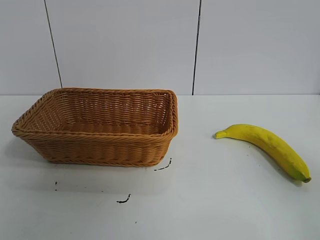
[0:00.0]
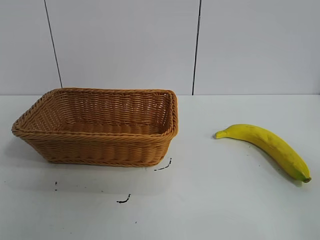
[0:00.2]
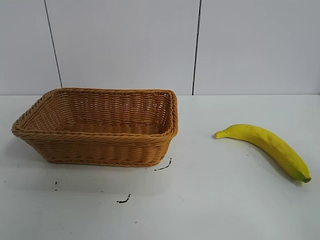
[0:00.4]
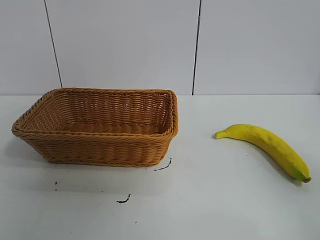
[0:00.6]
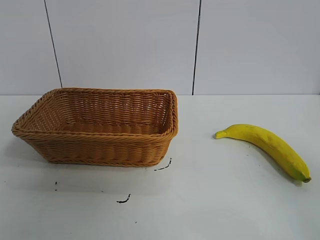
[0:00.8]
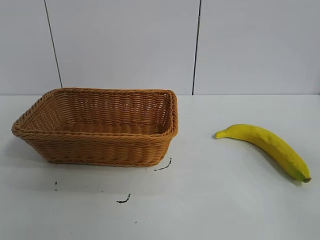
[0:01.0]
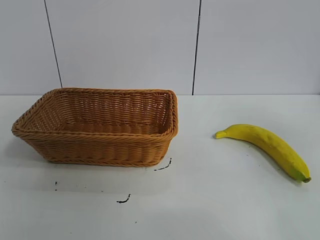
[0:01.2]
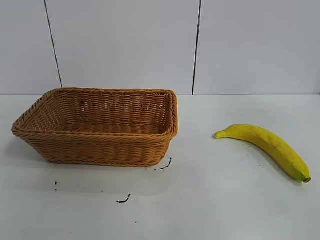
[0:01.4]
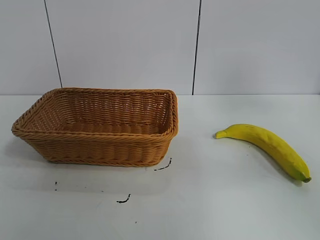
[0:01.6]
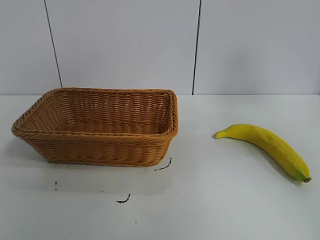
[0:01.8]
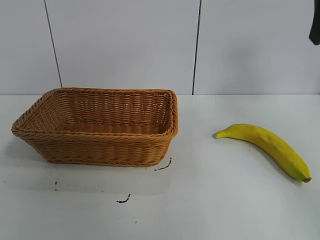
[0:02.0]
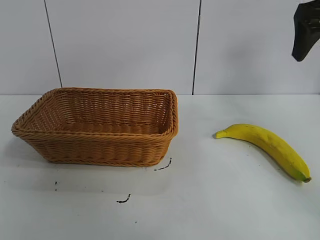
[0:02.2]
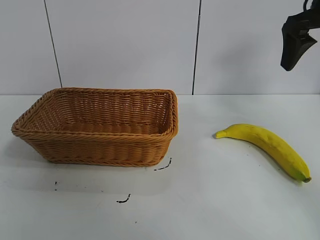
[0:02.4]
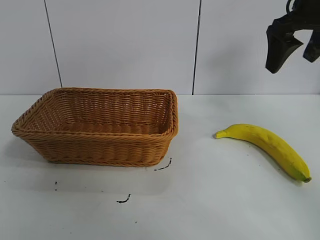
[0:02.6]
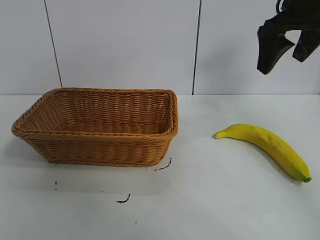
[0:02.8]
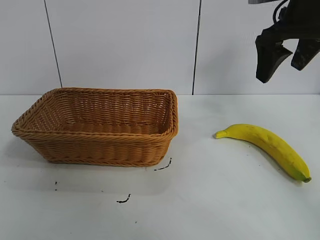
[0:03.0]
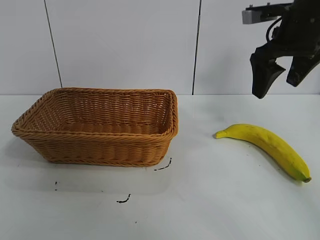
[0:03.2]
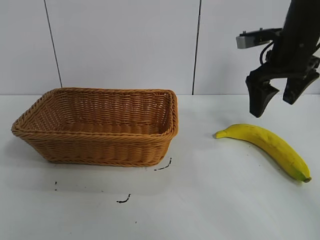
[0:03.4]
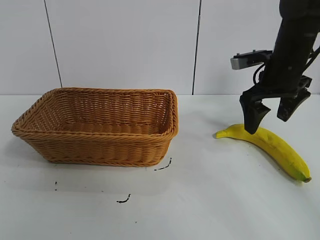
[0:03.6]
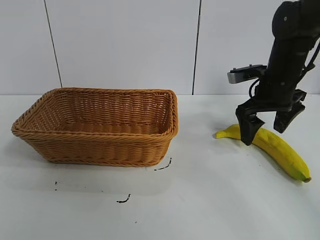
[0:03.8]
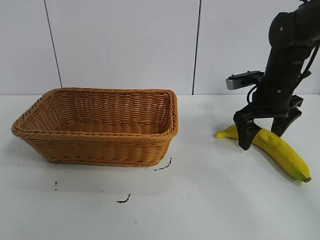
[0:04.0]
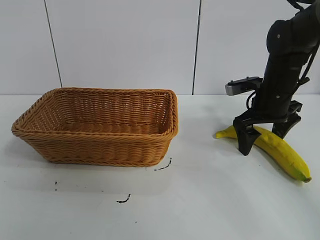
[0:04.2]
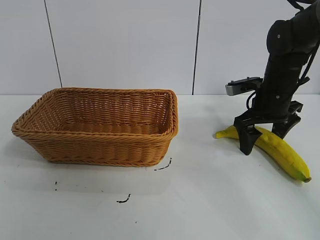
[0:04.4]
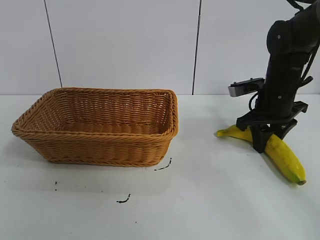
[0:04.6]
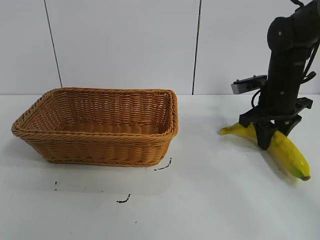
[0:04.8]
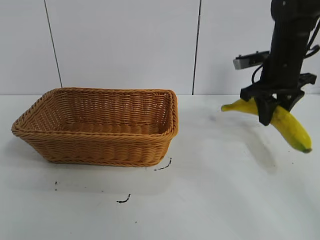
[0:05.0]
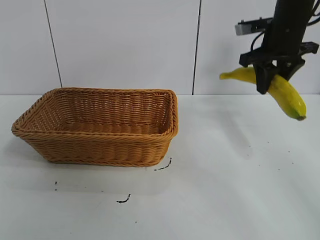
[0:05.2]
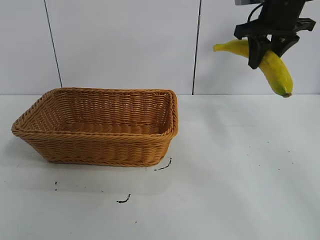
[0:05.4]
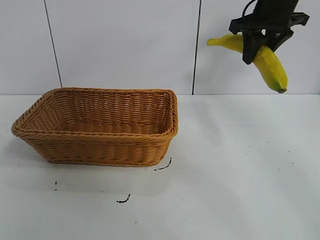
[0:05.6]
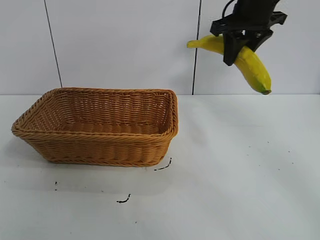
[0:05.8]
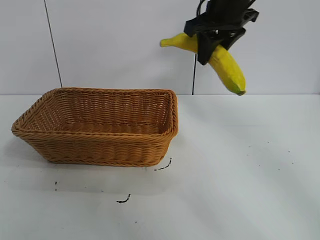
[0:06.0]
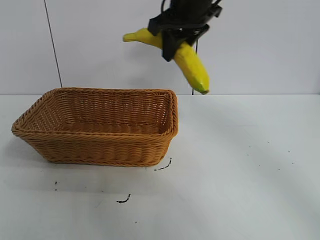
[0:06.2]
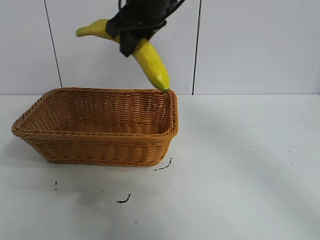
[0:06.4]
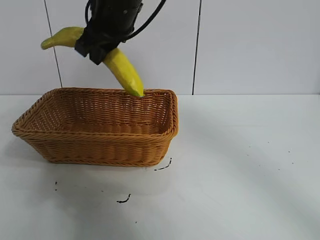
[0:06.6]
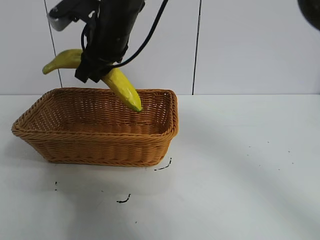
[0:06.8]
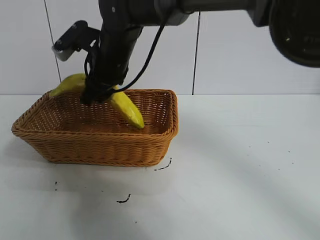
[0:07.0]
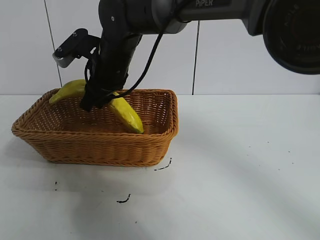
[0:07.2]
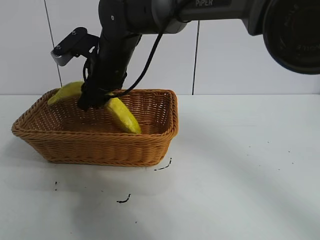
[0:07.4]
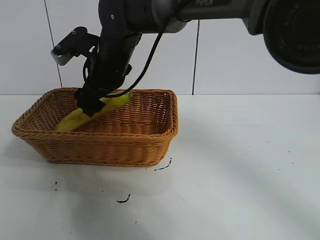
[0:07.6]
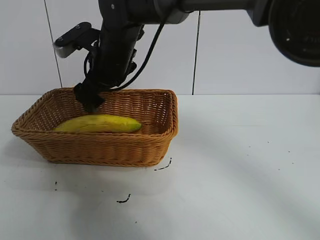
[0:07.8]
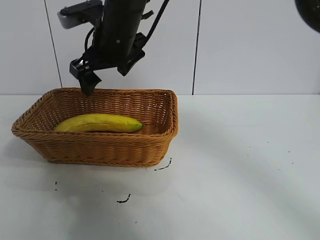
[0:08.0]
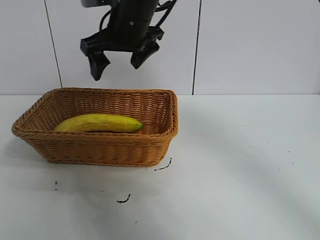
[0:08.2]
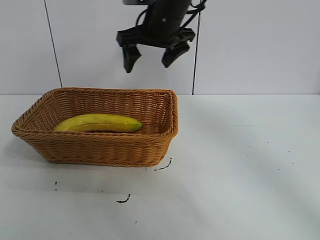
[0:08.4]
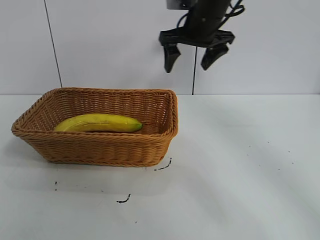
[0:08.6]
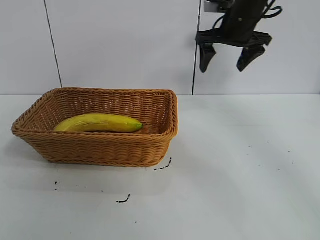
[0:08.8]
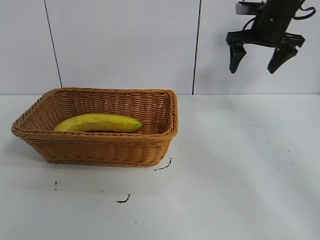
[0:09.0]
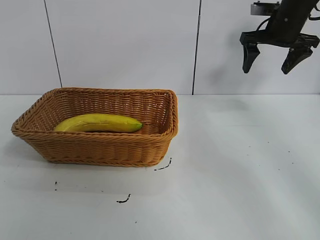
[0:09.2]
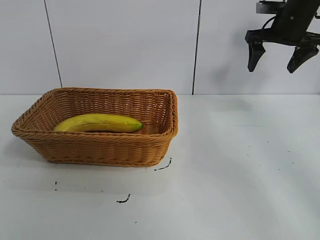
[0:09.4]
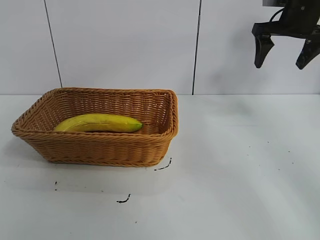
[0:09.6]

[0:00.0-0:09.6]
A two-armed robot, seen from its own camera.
Task of the whole recording: pick up the banana and put it into the basket.
Step, 0:00.8 to 0:04.4: Grasp the banana with right gripper.
Step, 0:04.8 to 0:08.0: Place the banana in the basket with right gripper.

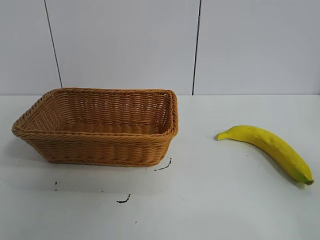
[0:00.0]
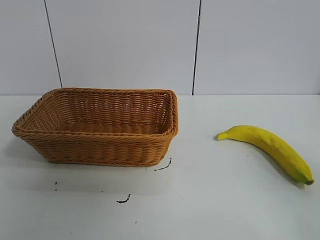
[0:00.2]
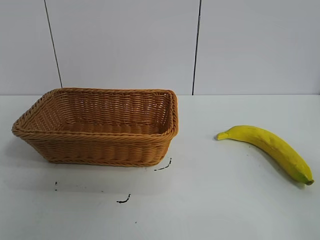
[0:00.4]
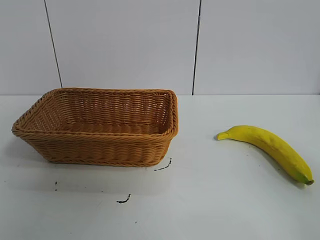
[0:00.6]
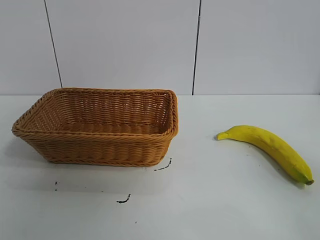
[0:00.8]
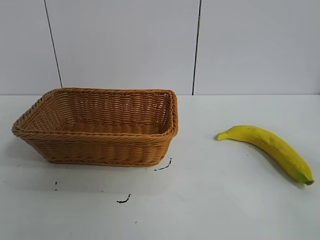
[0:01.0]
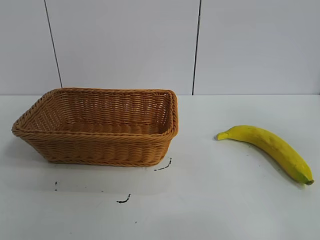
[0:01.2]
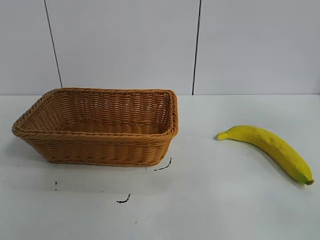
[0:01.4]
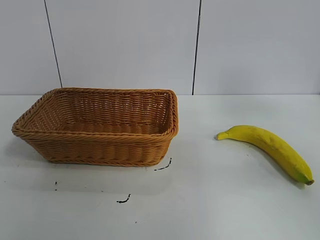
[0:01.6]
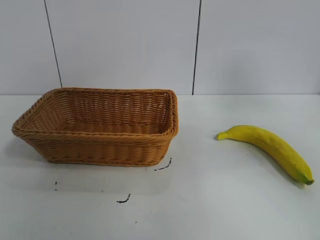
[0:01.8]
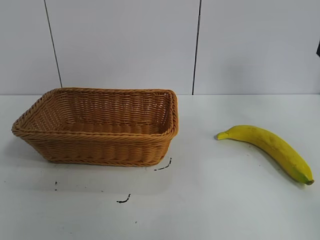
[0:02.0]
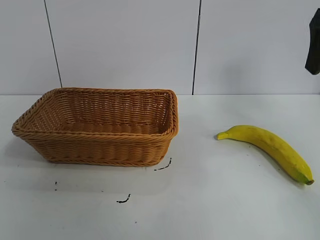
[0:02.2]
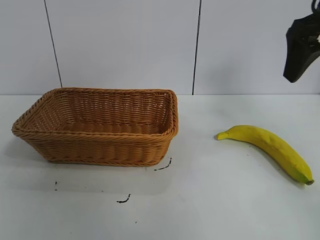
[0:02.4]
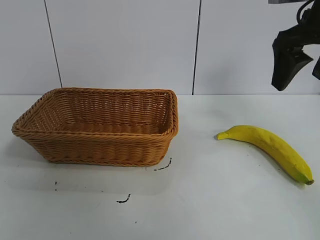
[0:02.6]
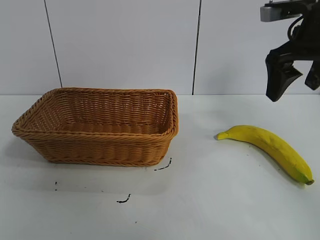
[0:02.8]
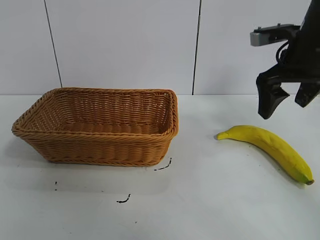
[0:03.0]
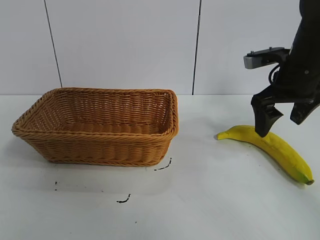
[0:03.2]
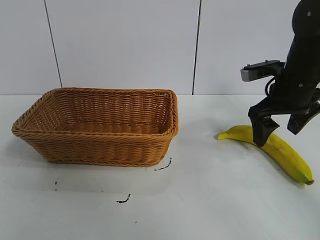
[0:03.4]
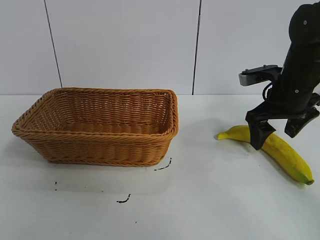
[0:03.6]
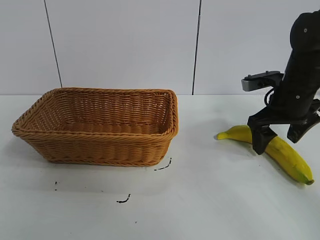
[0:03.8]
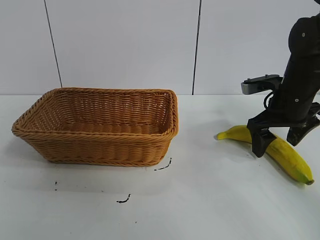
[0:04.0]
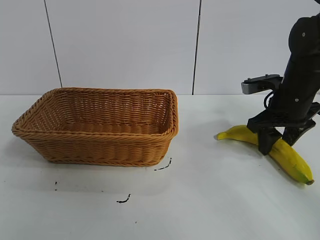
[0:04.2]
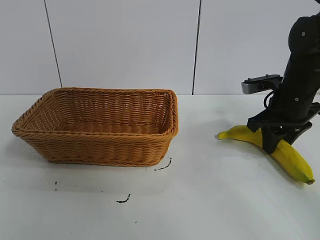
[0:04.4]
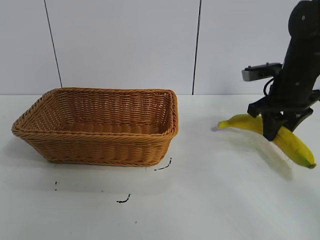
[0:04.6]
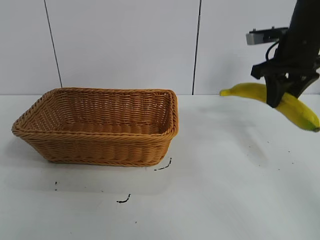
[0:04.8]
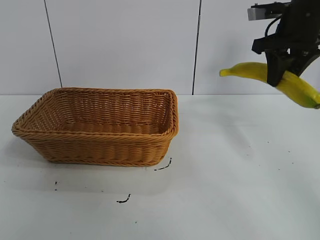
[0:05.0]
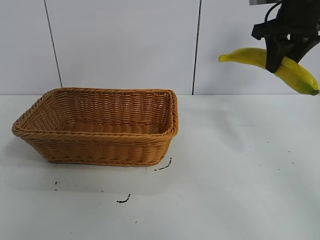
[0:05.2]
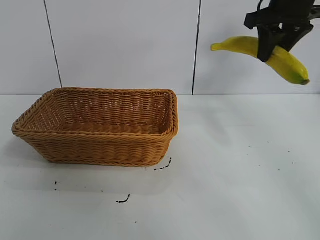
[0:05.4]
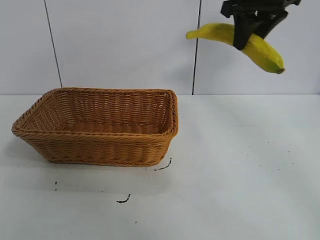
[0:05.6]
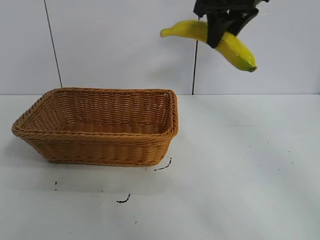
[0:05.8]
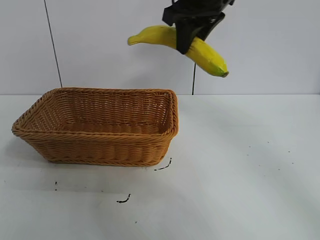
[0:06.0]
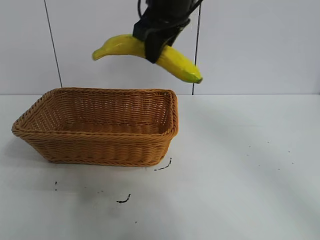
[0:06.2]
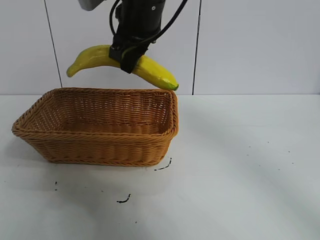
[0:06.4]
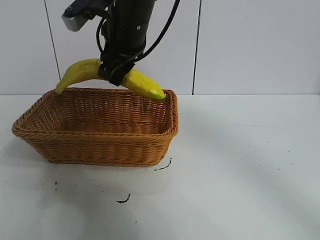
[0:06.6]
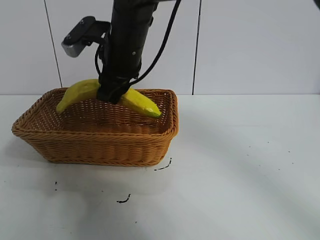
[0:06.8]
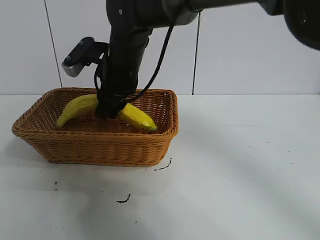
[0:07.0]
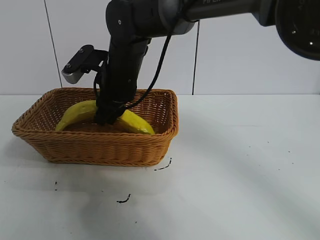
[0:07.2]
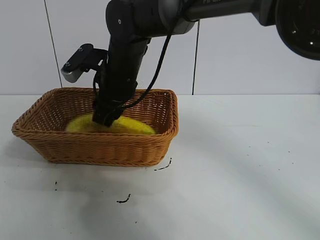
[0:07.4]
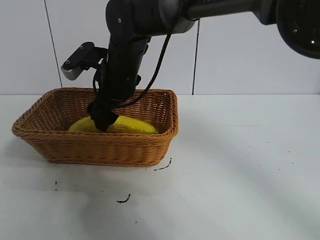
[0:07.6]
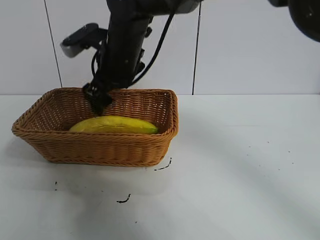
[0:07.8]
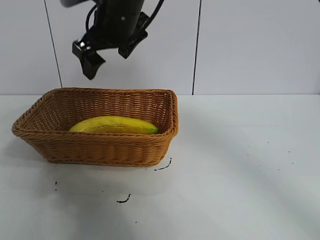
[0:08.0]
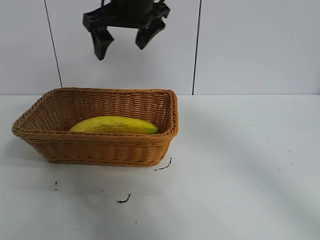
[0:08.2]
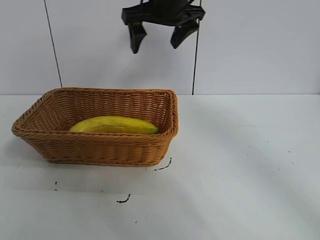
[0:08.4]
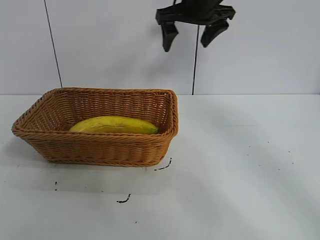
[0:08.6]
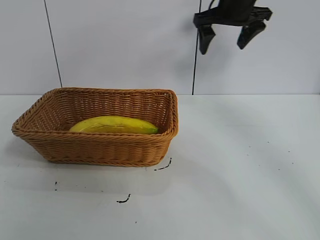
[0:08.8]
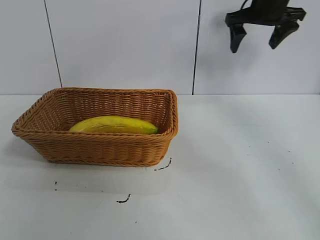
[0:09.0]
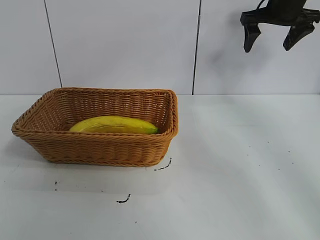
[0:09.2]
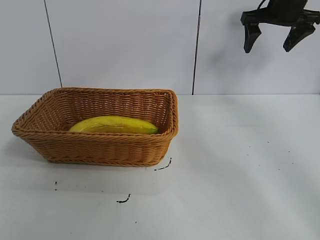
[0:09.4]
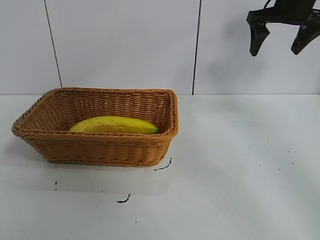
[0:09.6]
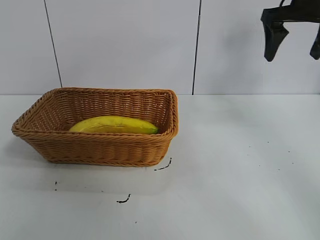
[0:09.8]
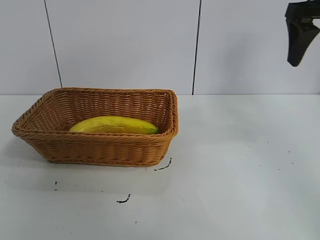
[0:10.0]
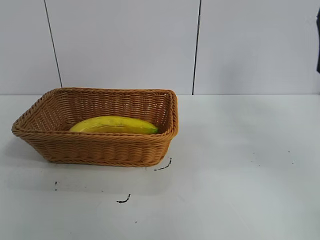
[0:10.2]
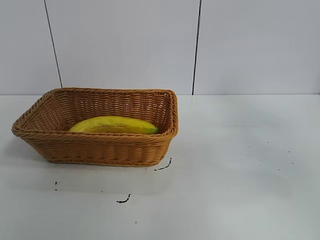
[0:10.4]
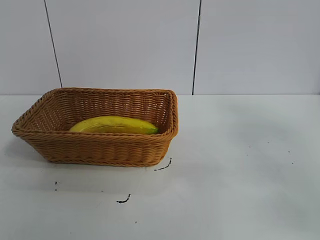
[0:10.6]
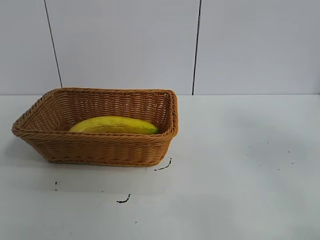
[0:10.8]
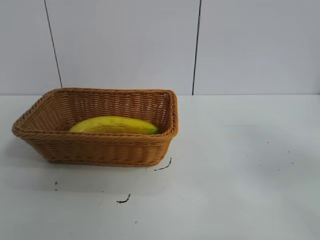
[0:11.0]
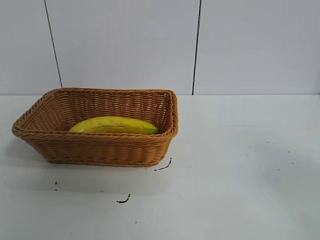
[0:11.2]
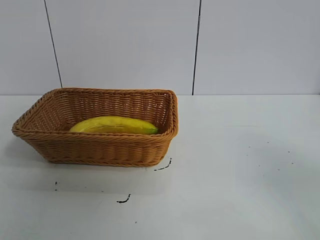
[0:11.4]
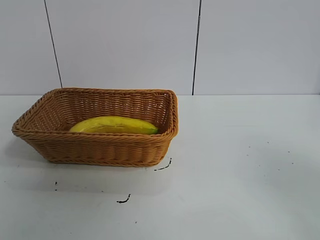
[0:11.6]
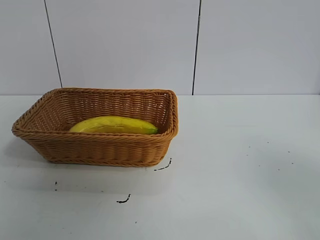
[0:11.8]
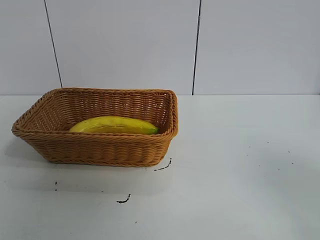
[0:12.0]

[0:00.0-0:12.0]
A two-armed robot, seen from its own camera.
Task of the whole recording: pick up the banana and put it into the basket.
Step, 0:00.8 to 0:04.4: Grasp the banana with right gripper.
Step, 0:04.6 to 0:07.6: Place the banana in the basket with right gripper.
